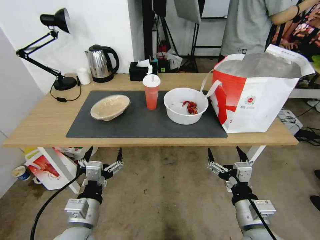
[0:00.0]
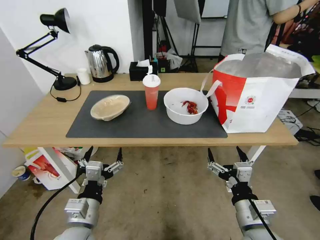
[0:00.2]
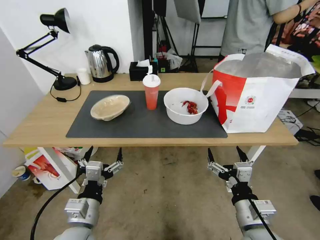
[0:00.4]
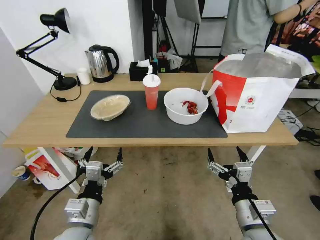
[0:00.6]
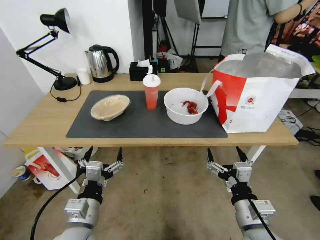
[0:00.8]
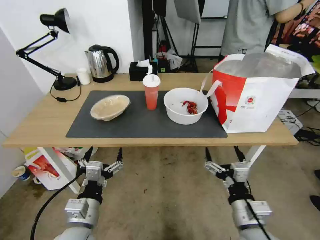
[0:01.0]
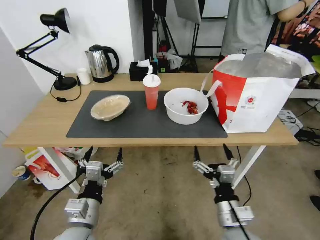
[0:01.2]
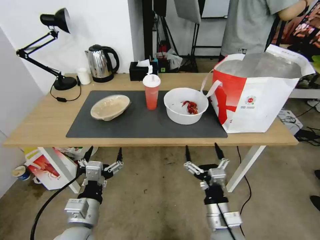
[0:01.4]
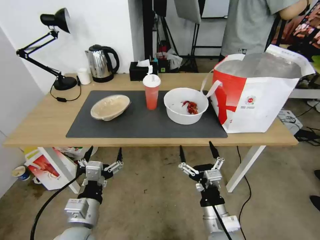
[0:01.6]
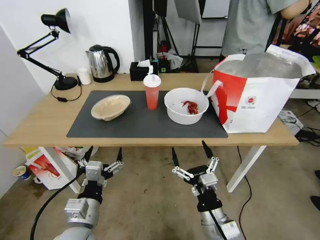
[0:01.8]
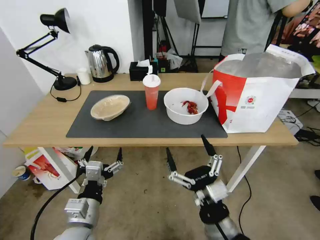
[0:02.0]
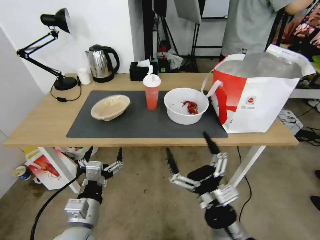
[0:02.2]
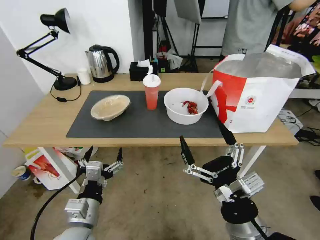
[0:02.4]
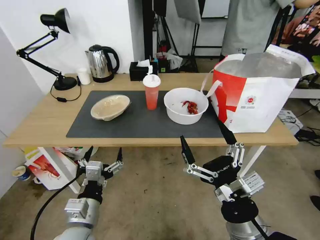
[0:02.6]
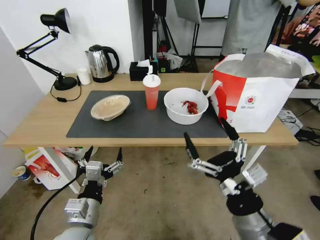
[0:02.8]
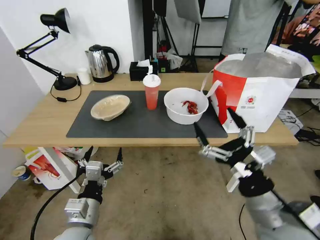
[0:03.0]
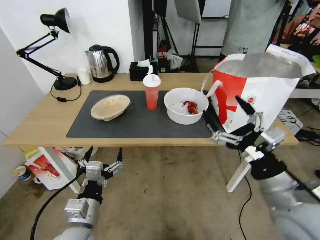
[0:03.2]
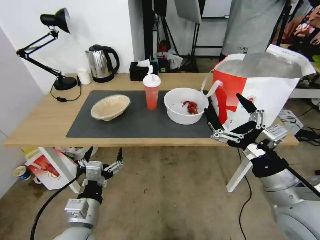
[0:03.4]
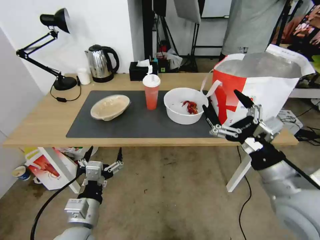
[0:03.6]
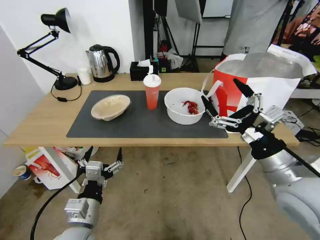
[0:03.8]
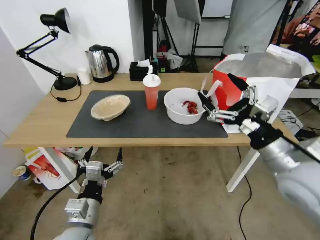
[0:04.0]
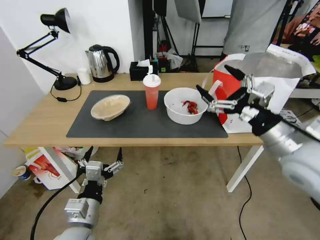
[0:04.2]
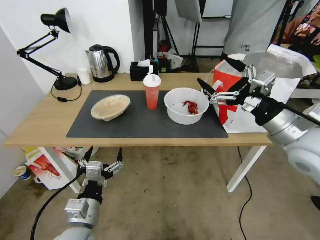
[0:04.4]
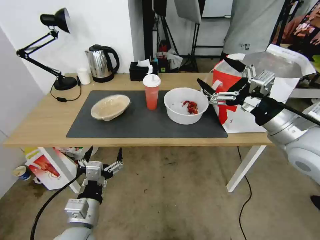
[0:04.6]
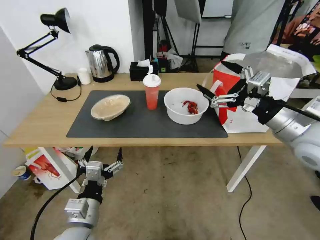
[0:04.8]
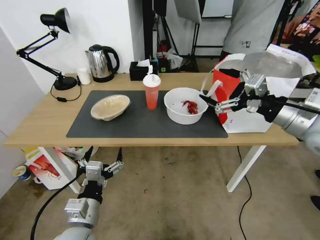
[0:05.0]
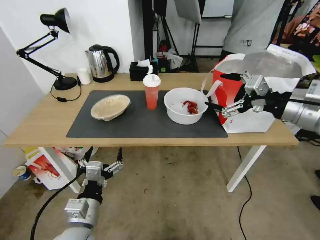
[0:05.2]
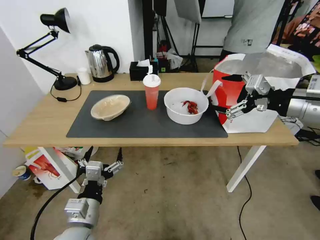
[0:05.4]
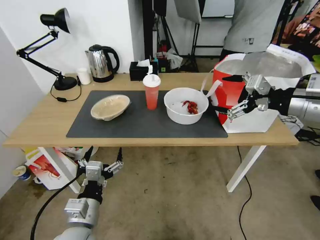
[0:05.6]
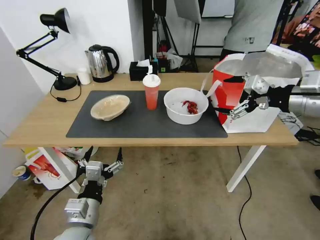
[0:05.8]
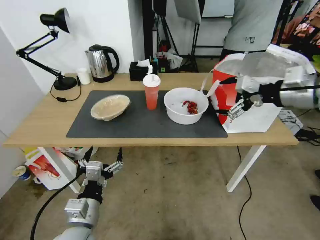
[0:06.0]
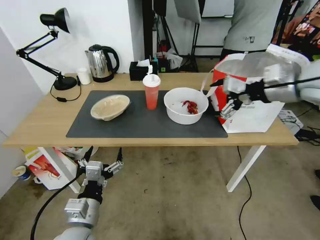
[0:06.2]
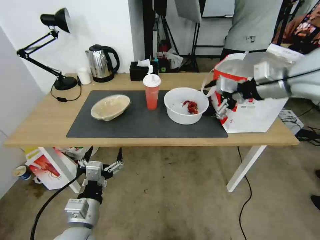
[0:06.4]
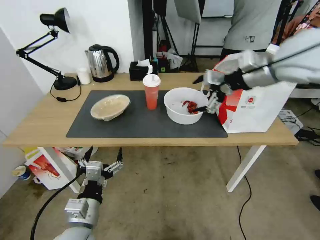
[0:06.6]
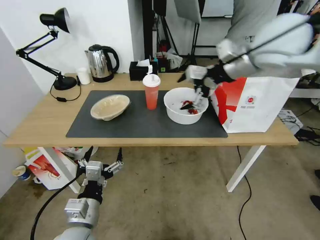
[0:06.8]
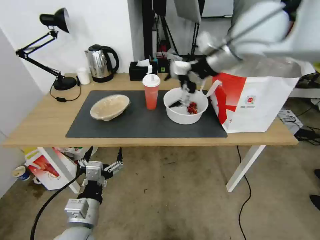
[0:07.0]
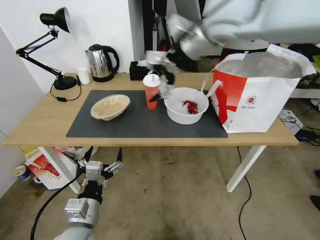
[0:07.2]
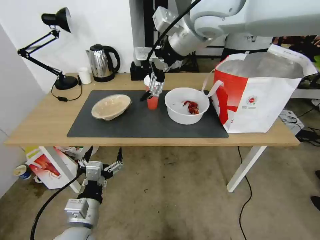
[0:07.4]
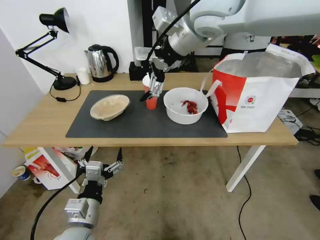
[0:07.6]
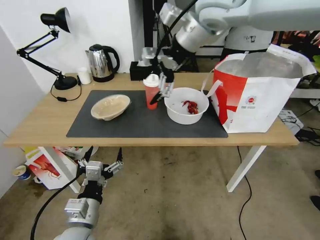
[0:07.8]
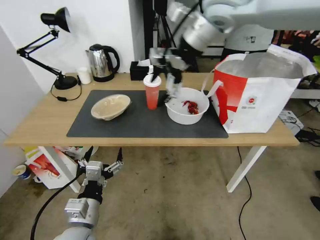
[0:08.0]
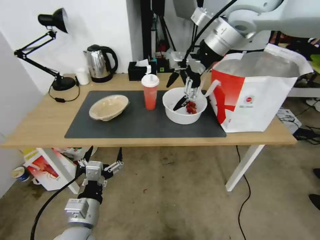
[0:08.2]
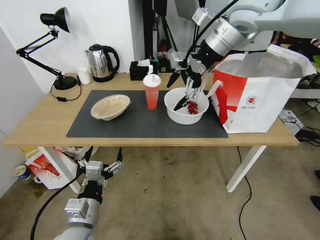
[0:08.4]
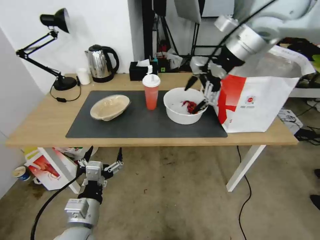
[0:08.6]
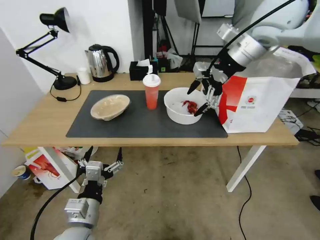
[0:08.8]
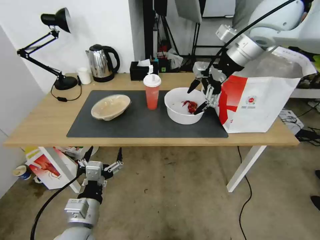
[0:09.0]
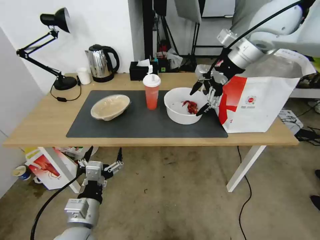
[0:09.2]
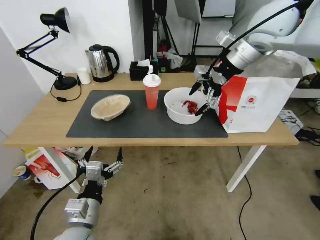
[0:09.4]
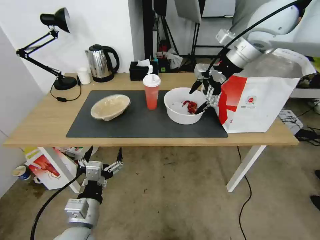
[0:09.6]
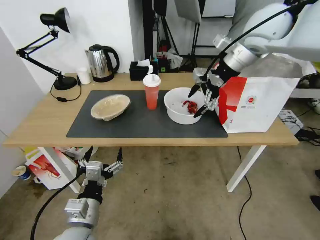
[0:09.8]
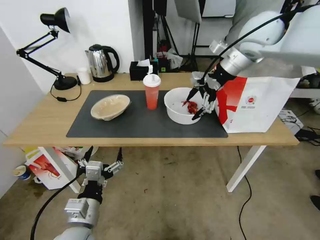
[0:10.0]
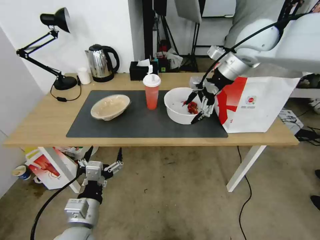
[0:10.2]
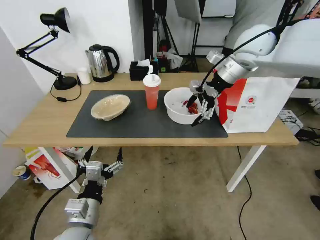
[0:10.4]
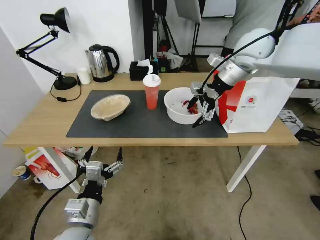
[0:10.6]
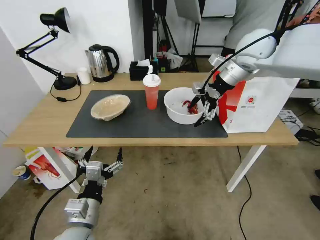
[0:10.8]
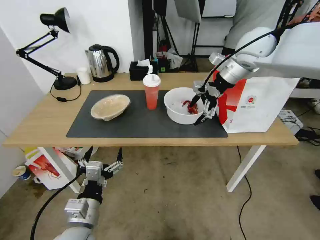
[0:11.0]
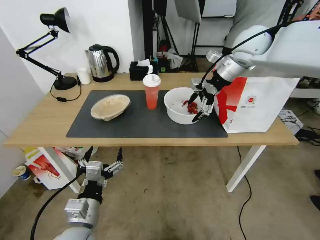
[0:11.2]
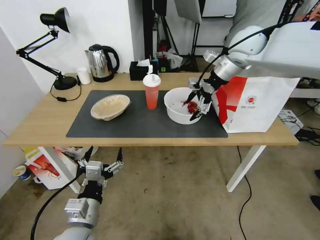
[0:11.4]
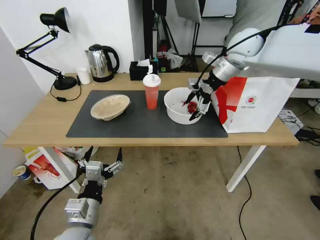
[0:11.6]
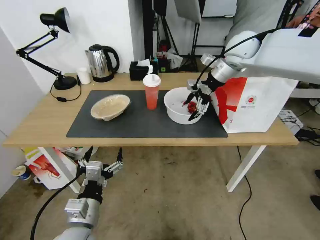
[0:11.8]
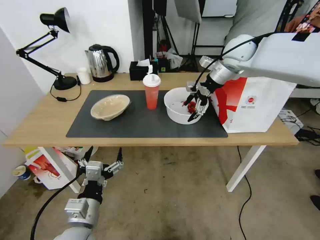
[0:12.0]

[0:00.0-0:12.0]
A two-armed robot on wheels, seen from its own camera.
Task of the whole recording: Pick up the trash from the table and place it into the takeout bag.
0:01.6 to 0:03.0: The right gripper travels upward and to the right by roughly 15 cm.
0:03.0 to 0:04.4: The right gripper moves forward, upward and to the right, approximately 20 cm.
0:04.4 to 0:06.0: The right gripper heads upward, forward and to the right, covering approximately 15 cm.
0:06.0 to 0:07.6: The right gripper heads to the left, upward and forward, covering some 30 cm.
0:07.6 to 0:09.0: The right gripper moves to the right, some 15 cm.
0:09.0 to 0:10.4: The right gripper goes approximately 5 cm downward.
0:10.4 to 0:12.0: The right gripper shifts roughly 5 cm forward.

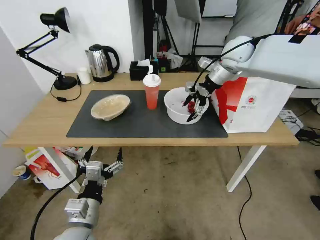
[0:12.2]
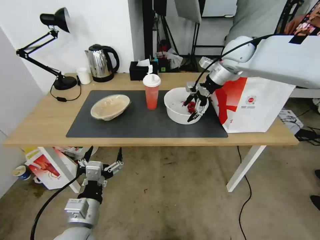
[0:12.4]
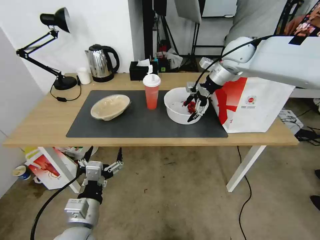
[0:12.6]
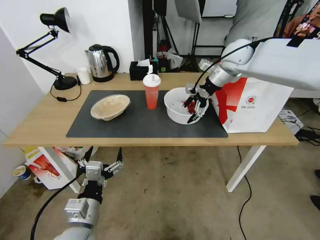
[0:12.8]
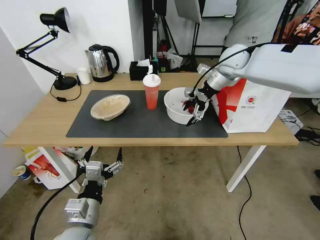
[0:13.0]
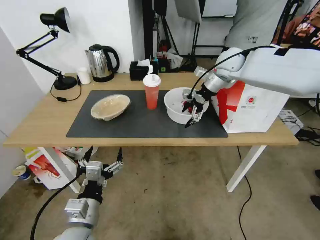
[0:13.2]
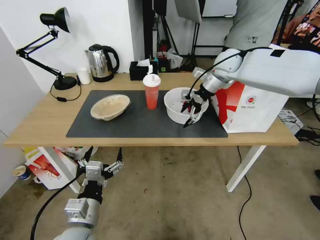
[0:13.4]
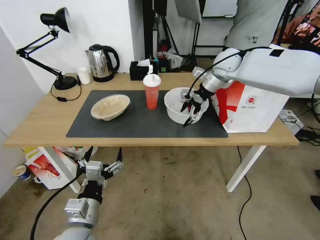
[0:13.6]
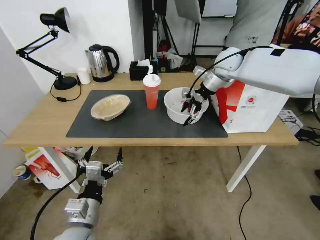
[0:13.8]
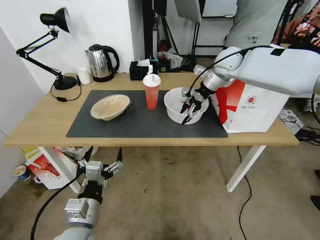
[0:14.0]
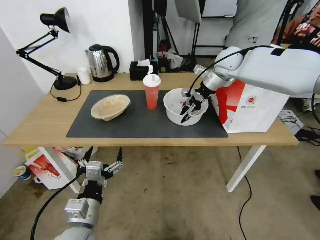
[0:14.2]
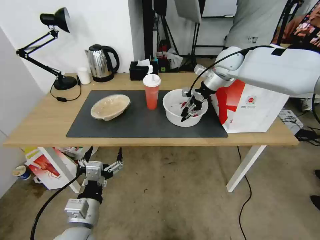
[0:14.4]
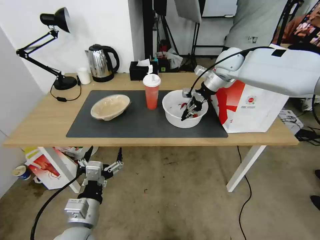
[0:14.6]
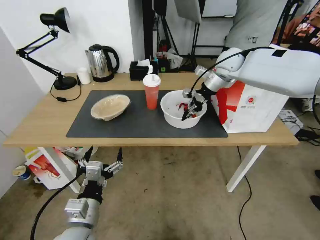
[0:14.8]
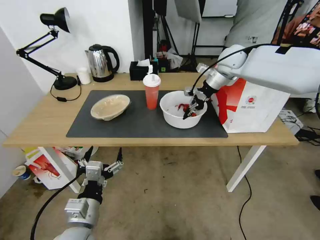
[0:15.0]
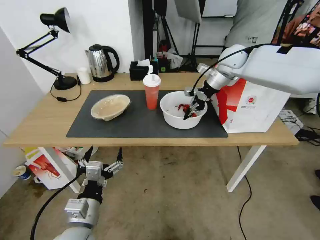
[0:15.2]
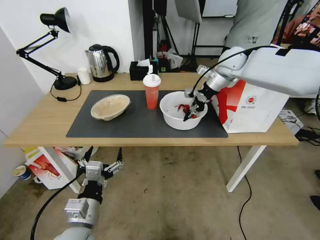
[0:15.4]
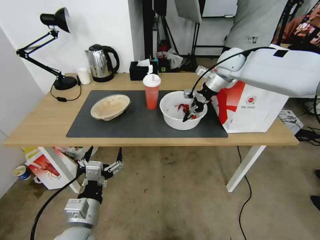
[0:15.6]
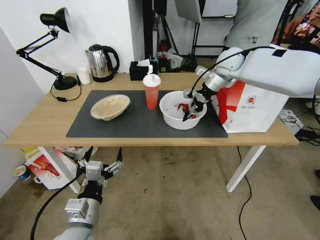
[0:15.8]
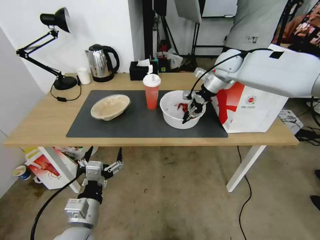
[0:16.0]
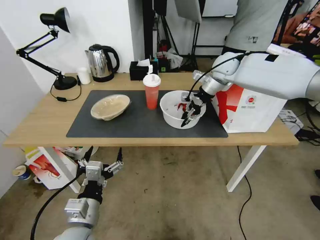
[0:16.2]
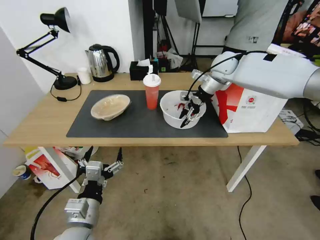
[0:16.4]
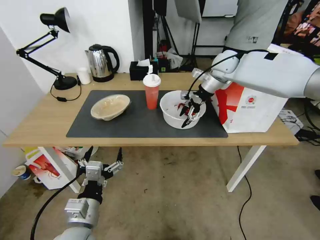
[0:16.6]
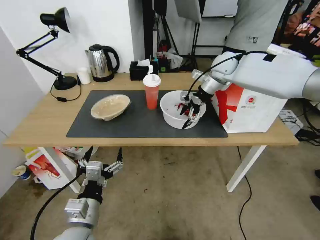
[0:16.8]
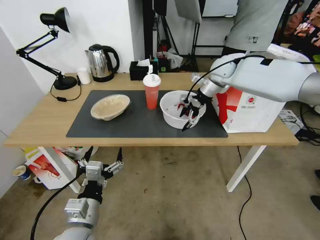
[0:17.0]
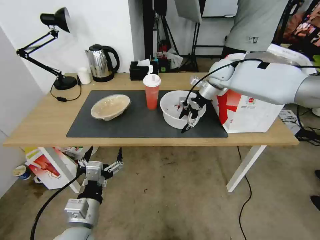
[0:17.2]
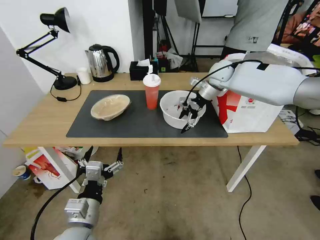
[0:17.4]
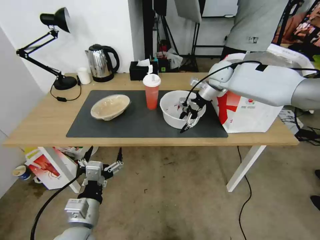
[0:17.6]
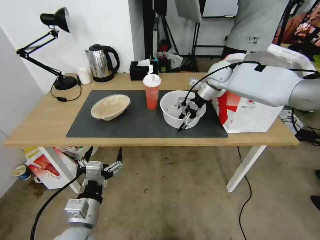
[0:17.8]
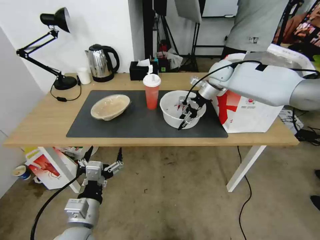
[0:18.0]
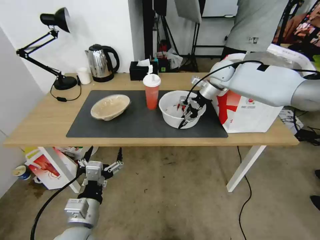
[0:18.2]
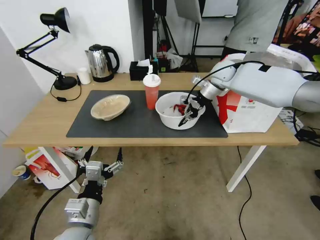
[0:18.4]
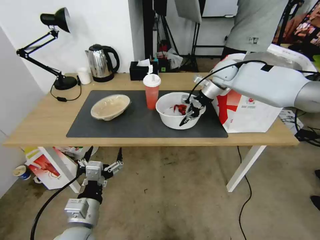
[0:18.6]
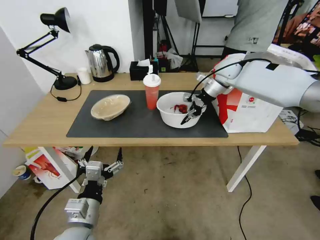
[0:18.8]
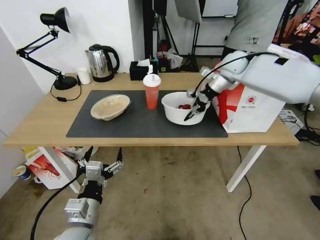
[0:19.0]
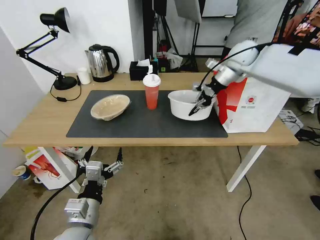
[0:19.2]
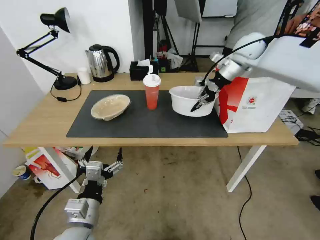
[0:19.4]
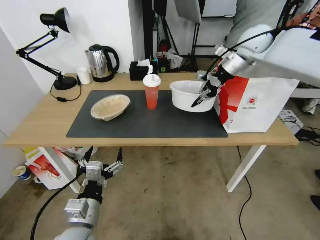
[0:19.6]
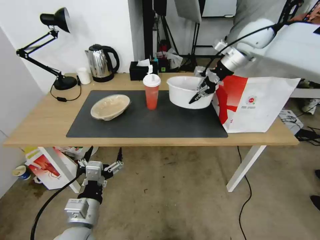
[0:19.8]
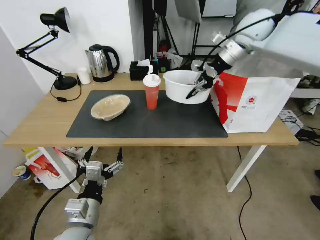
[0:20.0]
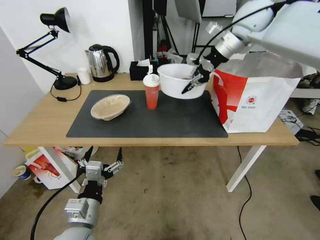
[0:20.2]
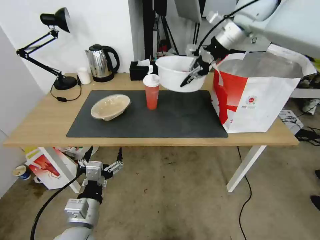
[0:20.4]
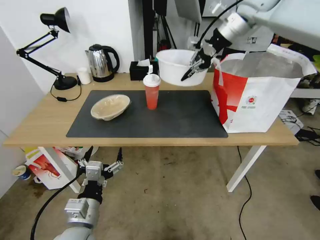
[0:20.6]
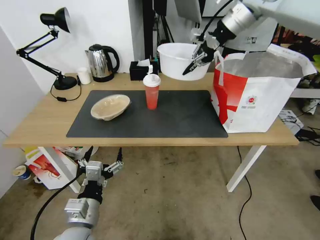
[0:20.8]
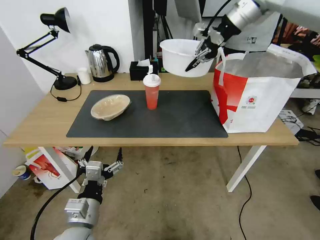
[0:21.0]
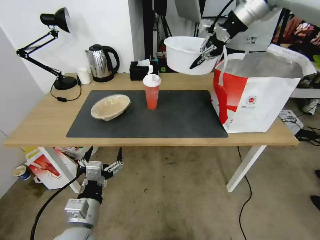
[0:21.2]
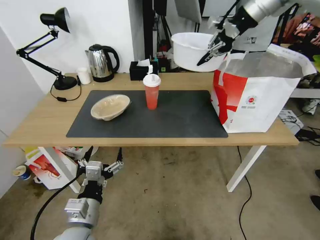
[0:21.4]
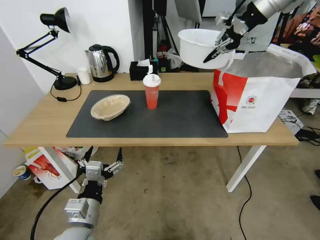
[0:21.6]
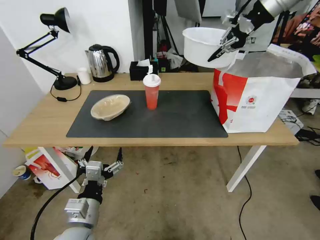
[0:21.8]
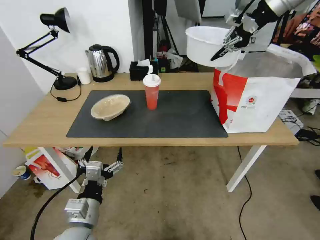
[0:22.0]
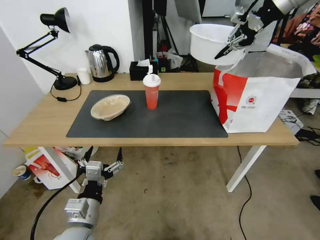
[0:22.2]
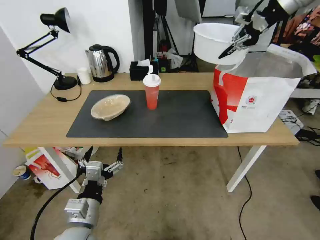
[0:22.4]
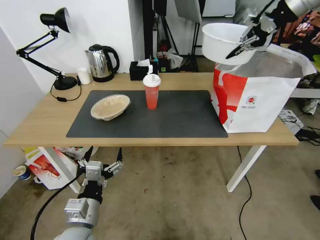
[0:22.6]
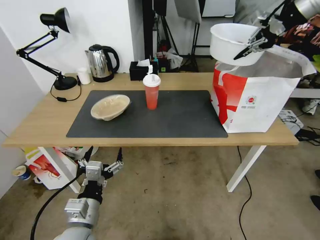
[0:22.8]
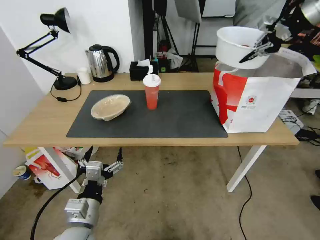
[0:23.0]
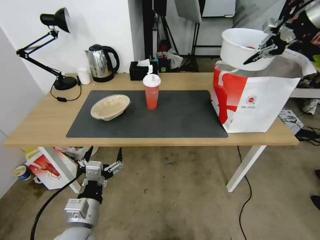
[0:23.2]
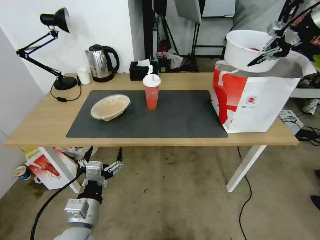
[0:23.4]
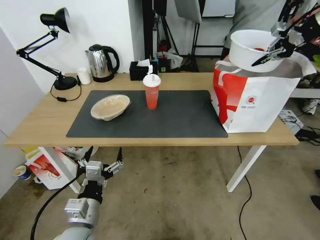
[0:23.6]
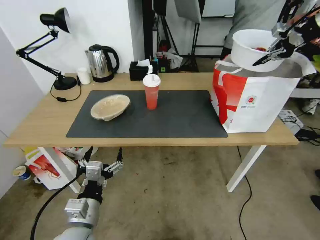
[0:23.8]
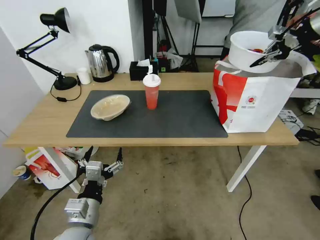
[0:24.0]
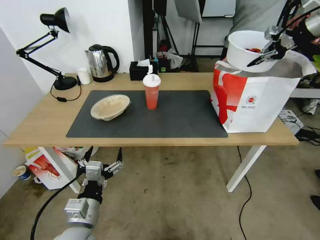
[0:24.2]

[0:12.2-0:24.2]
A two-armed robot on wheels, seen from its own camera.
Task of the whole recording: Pick up the trash from the table and place it into the takeout bag.
0:12.2 to 0:13.8: There are only small adjustments of the grippers.
0:13.8 to 0:15.2: The right gripper closes up.
0:15.2 to 0:16.6: The right gripper opens up.
0:16.6 to 0:18.2: The right gripper closes up.
0:18.2 to 0:19.8: The right gripper heads upward and to the right, covering about 15 cm.
0:19.8 to 0:21.2: The right gripper moves upward, some 15 cm.
0:21.2 to 0:22.6: The right gripper shifts about 10 cm to the right.
0:22.6 to 0:24.2: The right gripper heads to the right and downward, covering roughly 10 cm.
